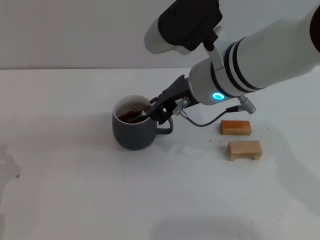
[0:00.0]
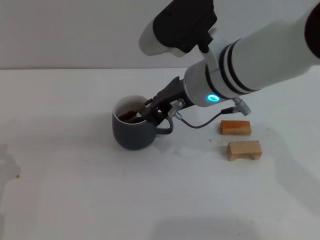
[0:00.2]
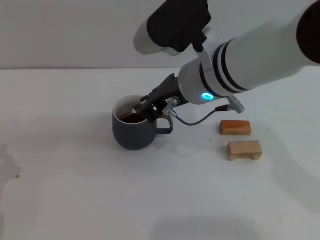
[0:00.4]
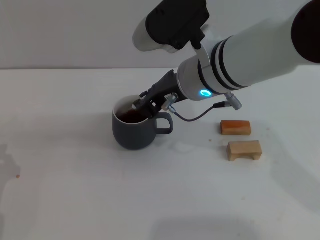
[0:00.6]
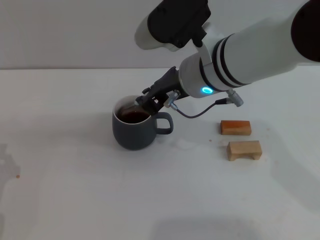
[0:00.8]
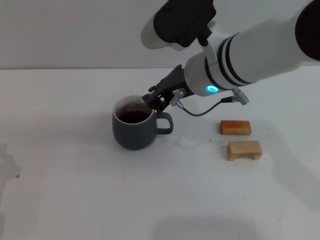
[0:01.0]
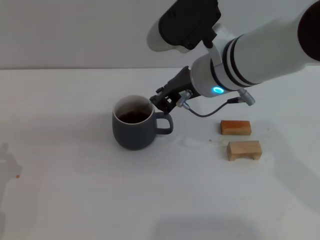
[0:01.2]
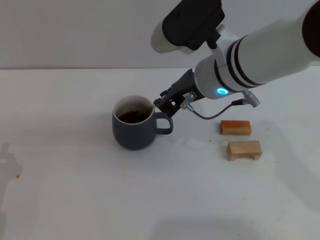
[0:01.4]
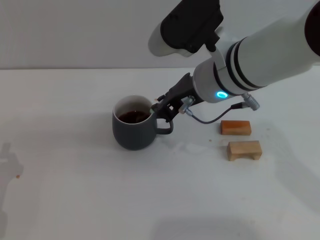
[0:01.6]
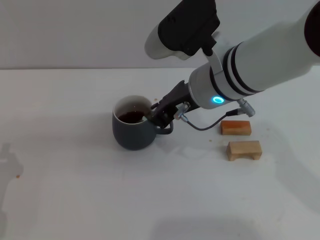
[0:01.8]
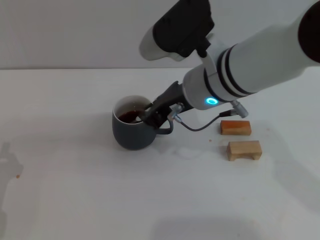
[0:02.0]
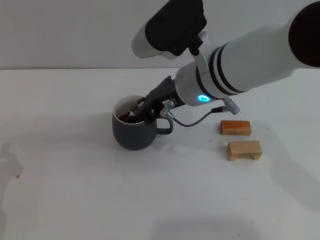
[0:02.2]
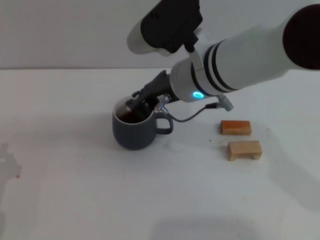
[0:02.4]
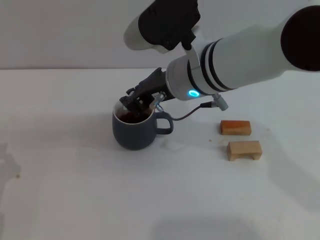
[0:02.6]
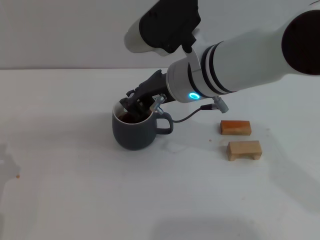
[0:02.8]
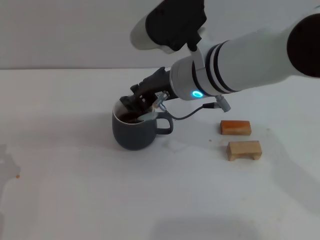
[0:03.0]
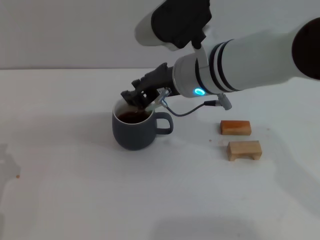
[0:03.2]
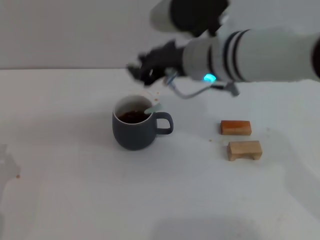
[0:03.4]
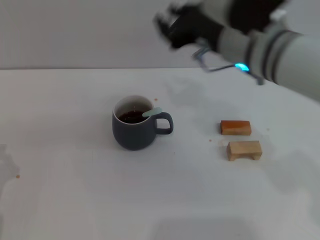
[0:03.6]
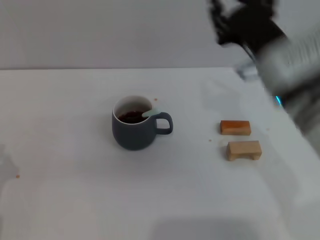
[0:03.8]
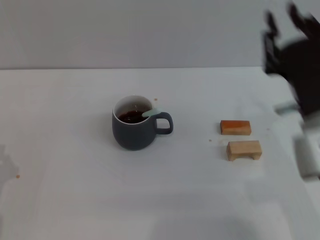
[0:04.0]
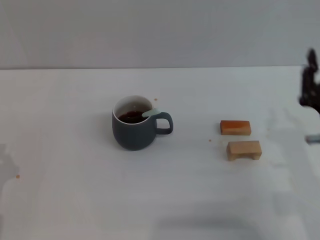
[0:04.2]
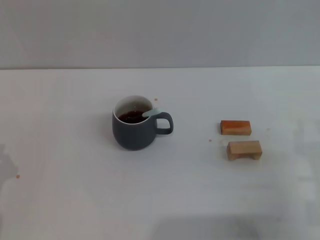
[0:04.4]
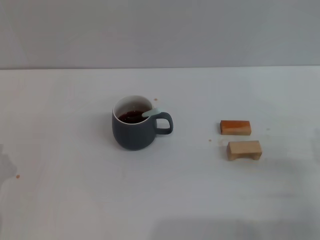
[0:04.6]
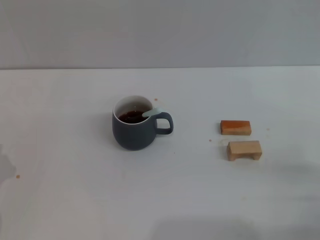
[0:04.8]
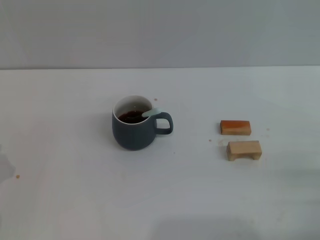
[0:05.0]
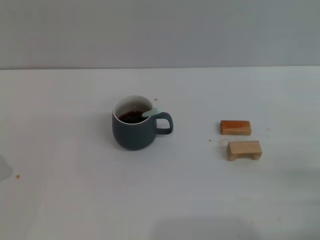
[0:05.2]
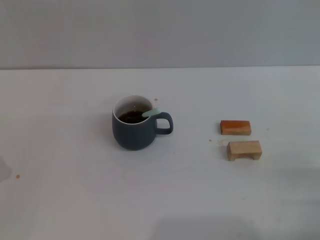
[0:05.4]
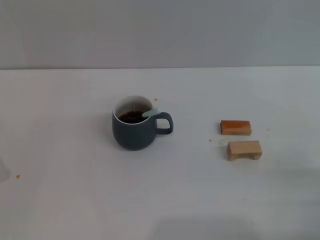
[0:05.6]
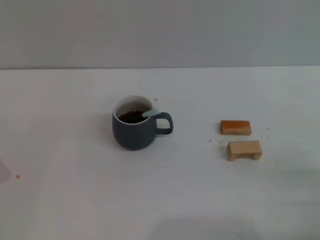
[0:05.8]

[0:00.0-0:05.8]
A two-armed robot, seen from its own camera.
Task of the whole recording: Move the grey cup to the center, lift the blue spoon, stir it three times in the cup, and put the spoon into the cup.
Step, 0:00.0 to 0:03.4: Stir the coffee in the cup with the right gripper.
0:00.0 to 0:02.8: The grippers stay close to where they were, moving slightly.
0:02.8 to 0:04.4: The right gripper goes roughly 30 cm to the right, downward and backward.
0:04.4 to 0:05.8: The right gripper travels to the right by about 5 cm, and opens its fingers.
